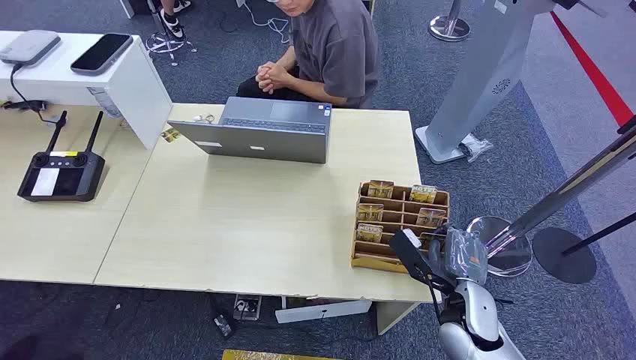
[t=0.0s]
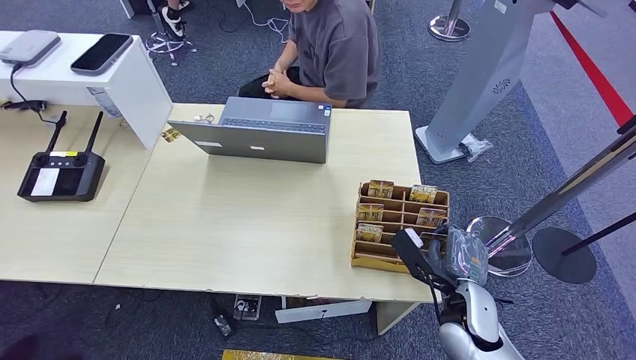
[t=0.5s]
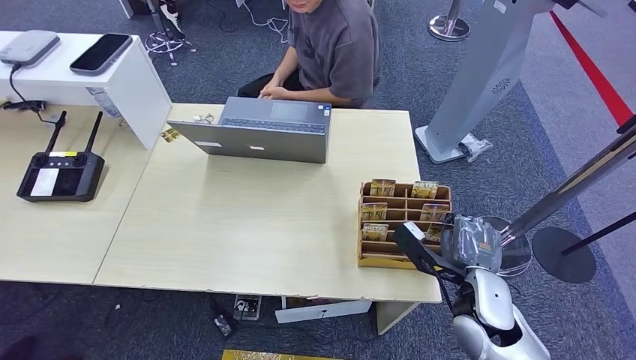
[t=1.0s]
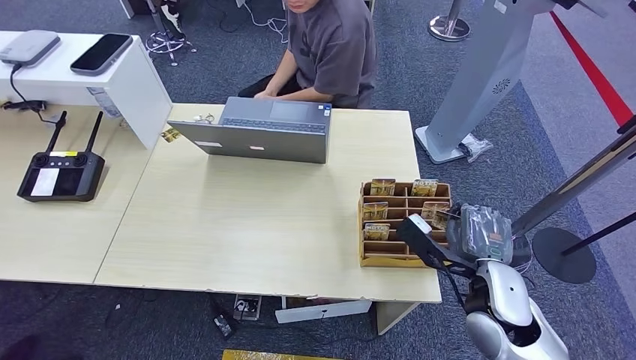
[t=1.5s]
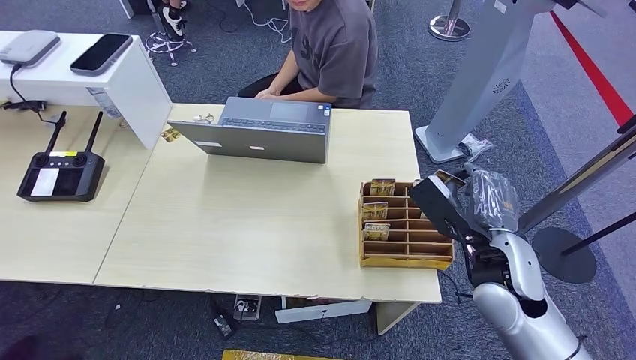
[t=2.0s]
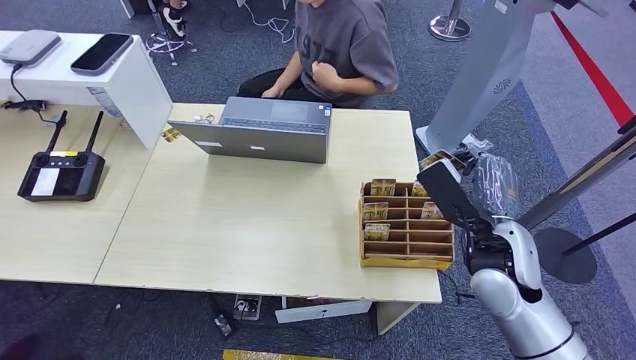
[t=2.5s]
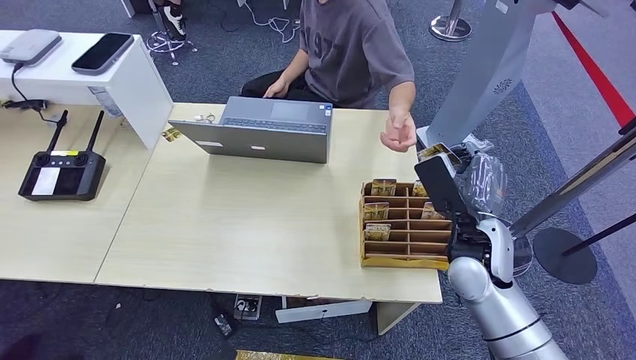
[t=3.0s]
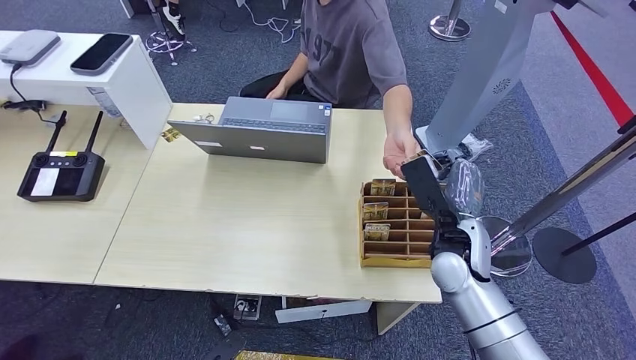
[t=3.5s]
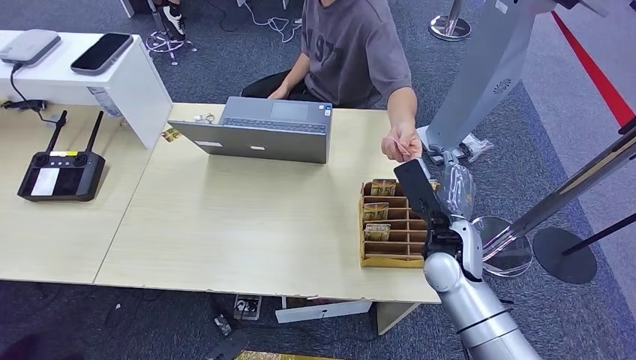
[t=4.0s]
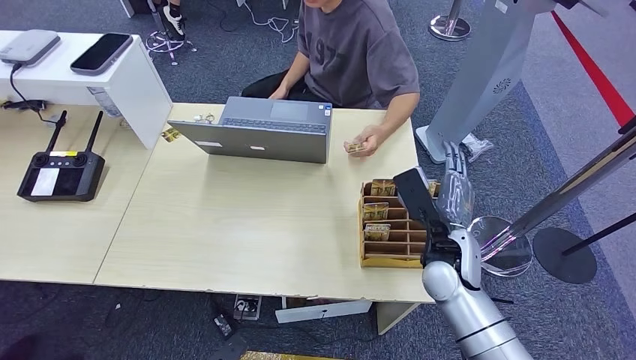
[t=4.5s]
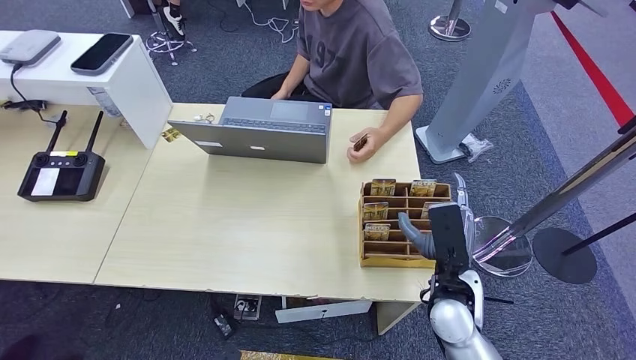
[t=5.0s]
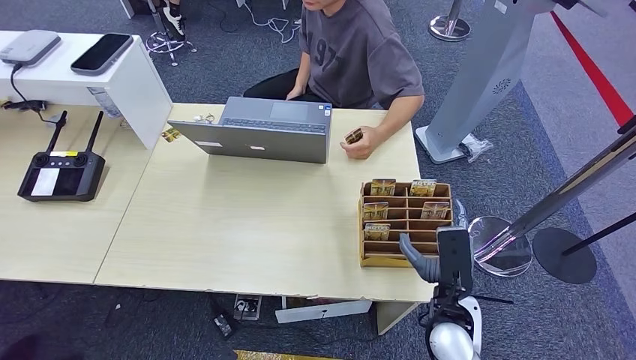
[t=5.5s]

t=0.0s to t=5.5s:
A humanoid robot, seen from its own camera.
Step, t=0.0s to t=2.5s: Pick up the room card from the card holder.
Step, t=3.0s to t=5.5s: Hand the room card to the target.
t=2.0s to t=3.5s: The two hands go roughly 5 cm forward.
t=3.5s to t=5.5s: The right hand travels backward and downward by approximately 10 cm.
